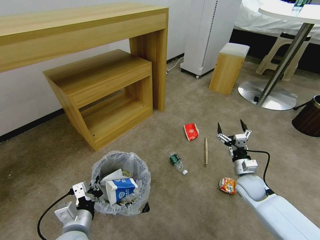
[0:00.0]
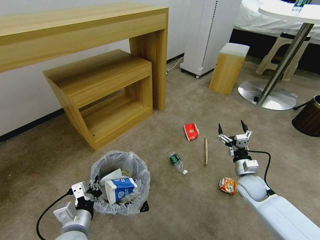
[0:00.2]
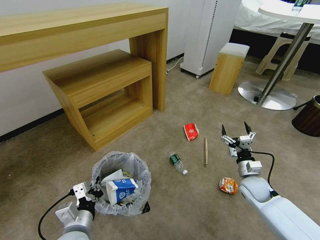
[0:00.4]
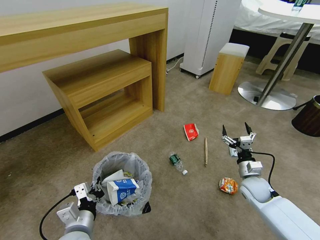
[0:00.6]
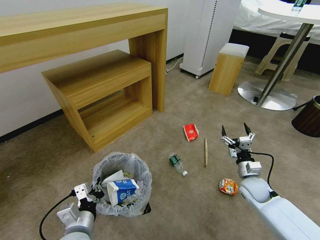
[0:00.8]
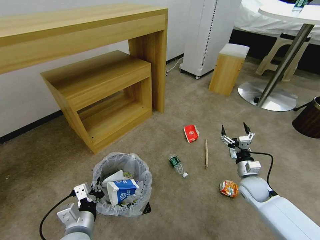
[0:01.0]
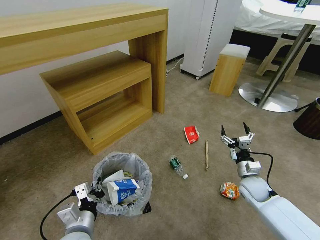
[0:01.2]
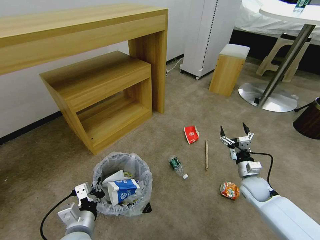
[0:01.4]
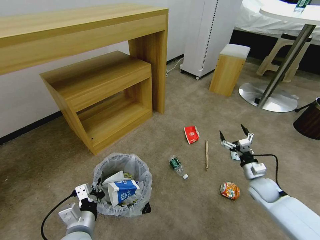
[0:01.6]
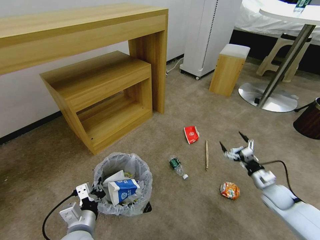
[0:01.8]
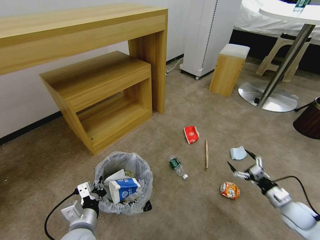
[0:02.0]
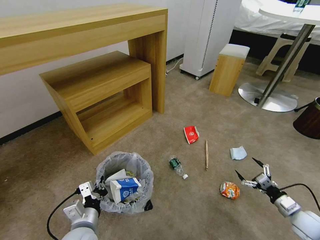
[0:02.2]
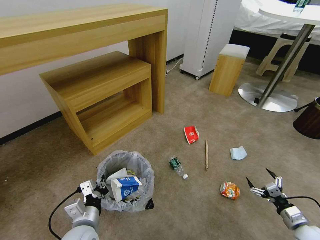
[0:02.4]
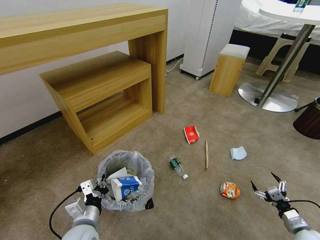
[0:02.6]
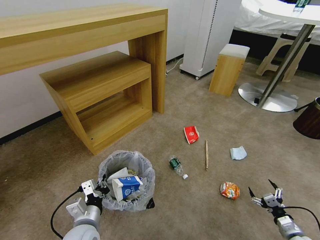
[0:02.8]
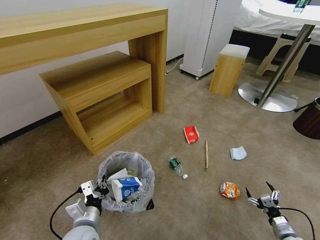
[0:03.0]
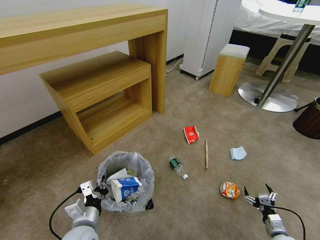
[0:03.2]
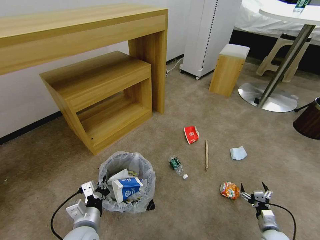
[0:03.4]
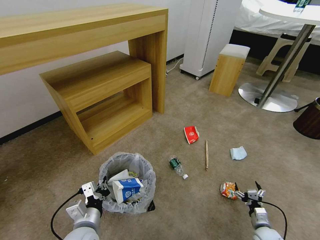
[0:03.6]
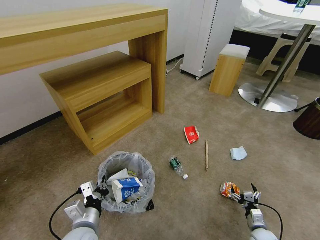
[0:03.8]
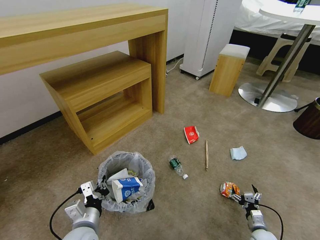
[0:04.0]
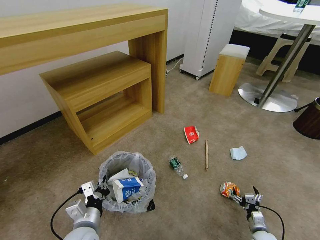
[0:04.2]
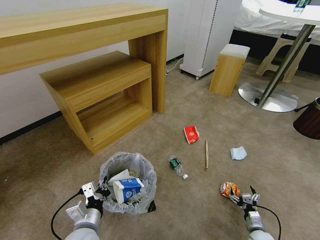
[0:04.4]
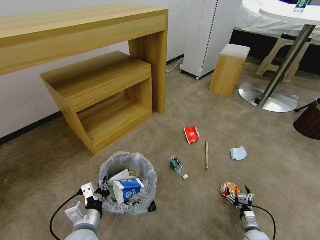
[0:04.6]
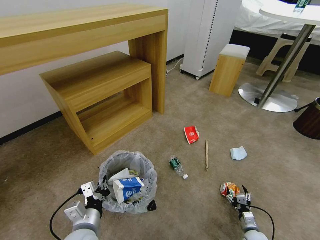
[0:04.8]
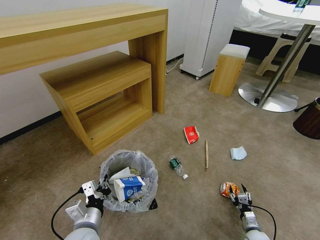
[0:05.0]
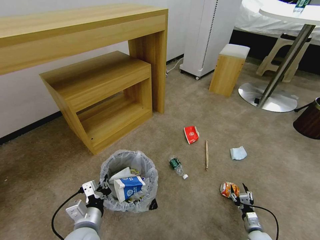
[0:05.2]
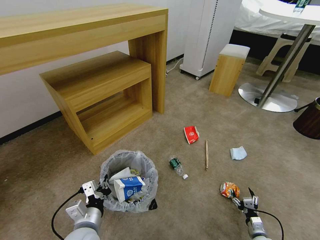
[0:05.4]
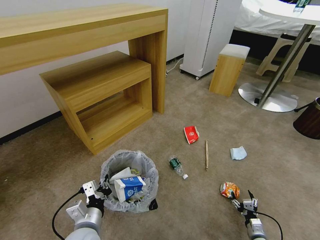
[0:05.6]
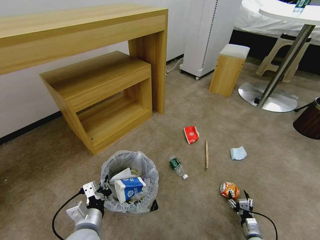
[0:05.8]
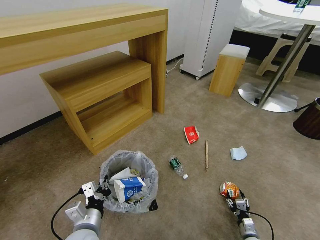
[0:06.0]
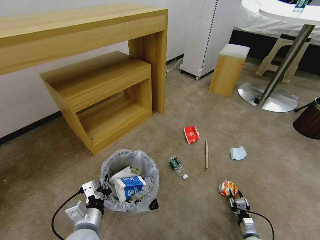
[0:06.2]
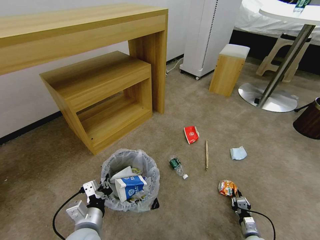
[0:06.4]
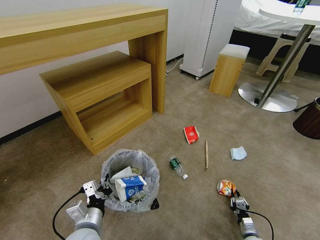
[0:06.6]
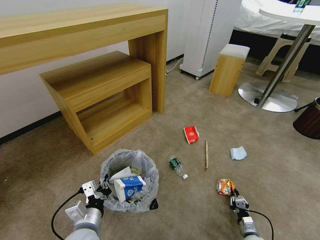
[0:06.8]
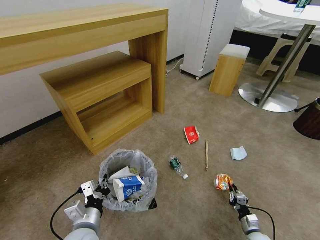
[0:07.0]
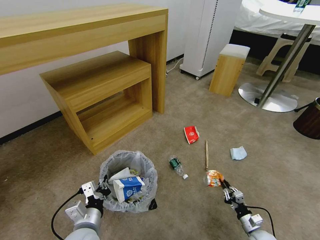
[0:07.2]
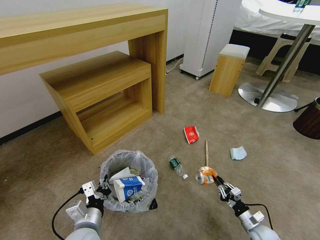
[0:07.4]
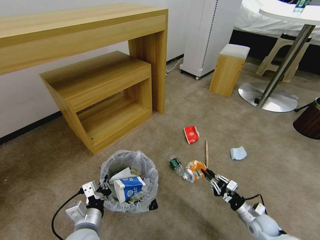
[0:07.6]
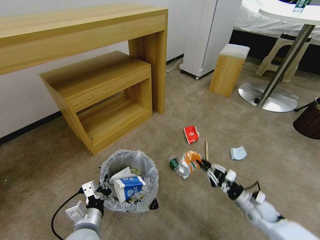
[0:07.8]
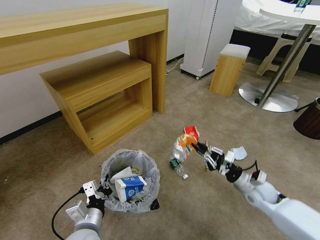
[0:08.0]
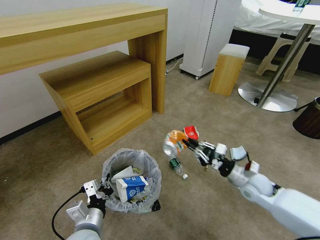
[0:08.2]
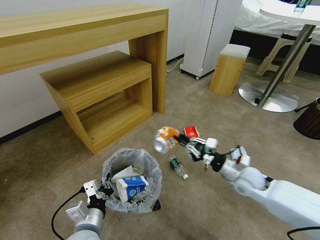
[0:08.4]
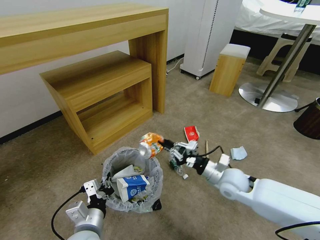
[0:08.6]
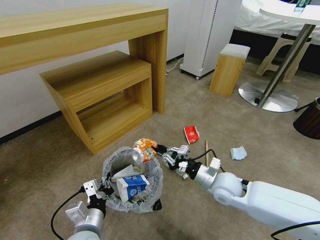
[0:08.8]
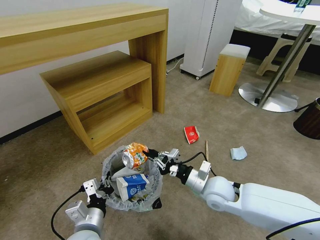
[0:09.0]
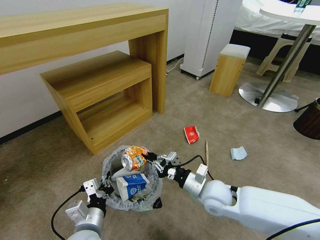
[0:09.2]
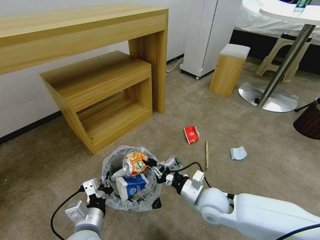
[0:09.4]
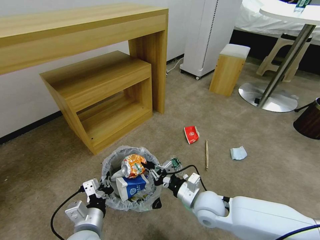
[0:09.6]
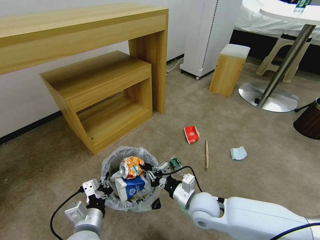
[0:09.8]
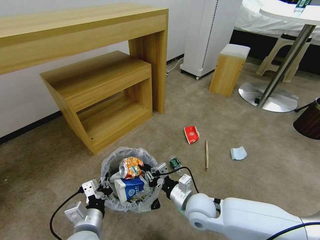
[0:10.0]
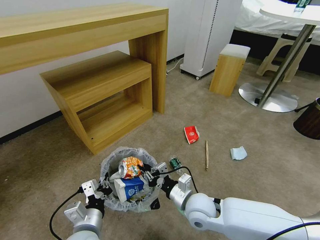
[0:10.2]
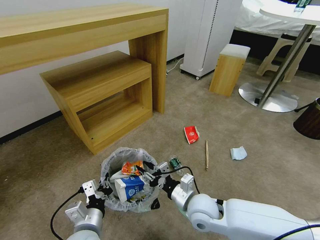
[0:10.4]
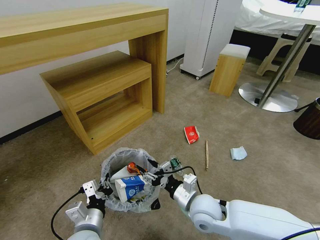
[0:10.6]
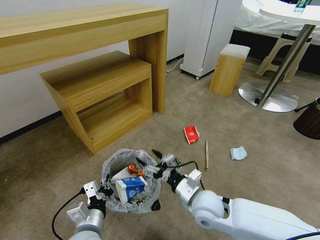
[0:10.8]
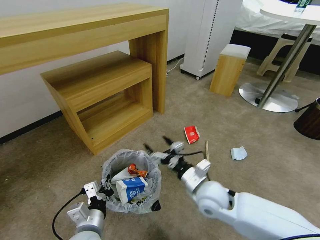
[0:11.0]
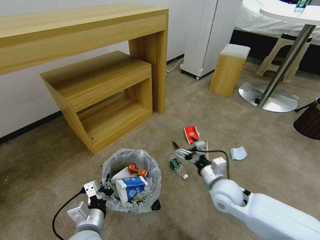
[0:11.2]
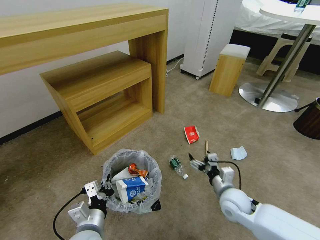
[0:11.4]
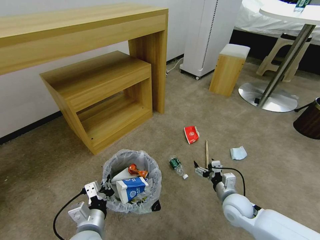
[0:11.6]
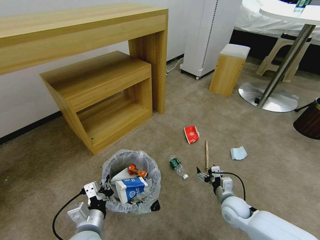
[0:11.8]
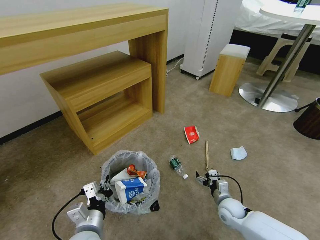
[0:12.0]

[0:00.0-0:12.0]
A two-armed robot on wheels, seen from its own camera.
Task of the whole recording: Pick up the trash bin and place the garbage on the floor into it.
0:00.0 to 0:01.6: The grippers stay close to where they were, moving slightly.
0:01.6 to 0:03.0: The right gripper travels to the right and backward by roughly 20 cm.
0:03.0 to 0:04.4: The right gripper shifts some 15 cm downward and to the left.
0:04.4 to 0:06.0: The right gripper closes up.
0:06.0 to 0:07.6: The right gripper closes.
0:07.6 to 0:09.0: The right gripper is displaced upward and forward by some 25 cm.
0:09.0 to 0:10.4: The right gripper travels to the left and upward by about 20 cm.
0:10.4 to 0:12.0: The right gripper is displaced to the left and backward by roughly 10 cm, and opens up.

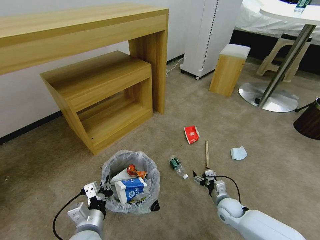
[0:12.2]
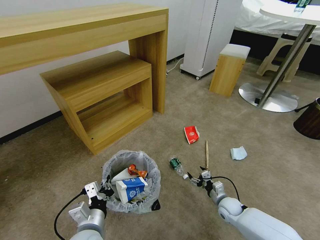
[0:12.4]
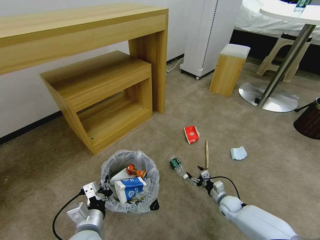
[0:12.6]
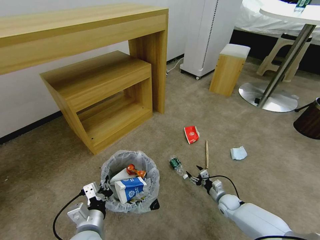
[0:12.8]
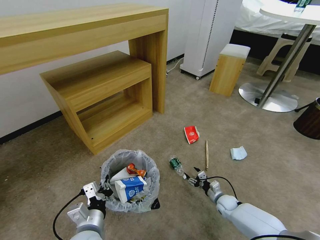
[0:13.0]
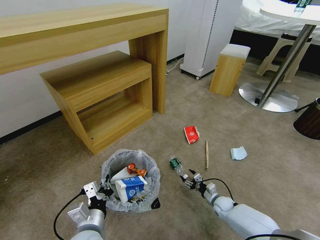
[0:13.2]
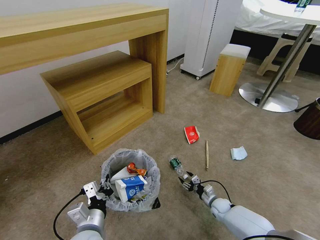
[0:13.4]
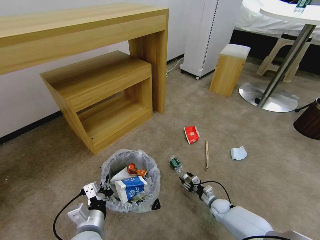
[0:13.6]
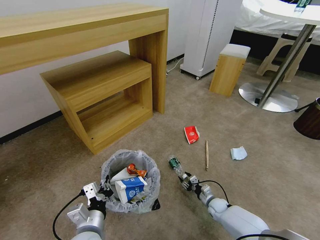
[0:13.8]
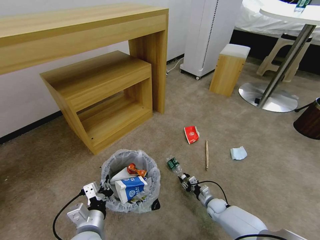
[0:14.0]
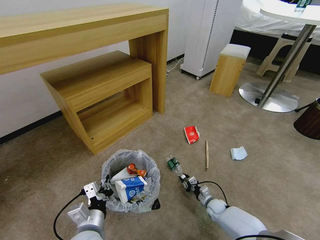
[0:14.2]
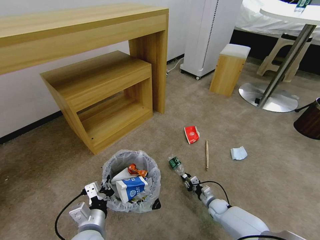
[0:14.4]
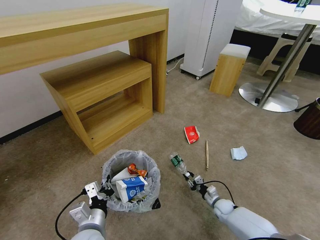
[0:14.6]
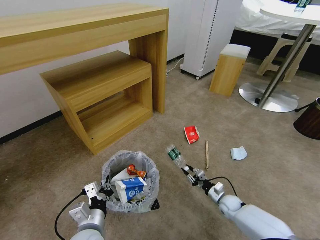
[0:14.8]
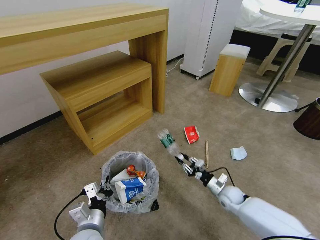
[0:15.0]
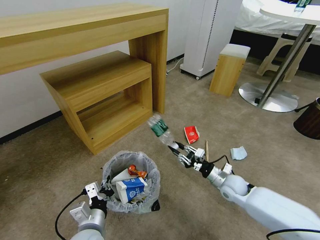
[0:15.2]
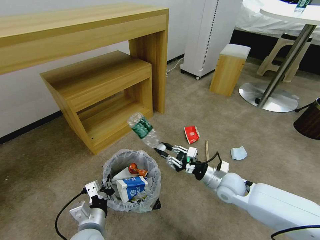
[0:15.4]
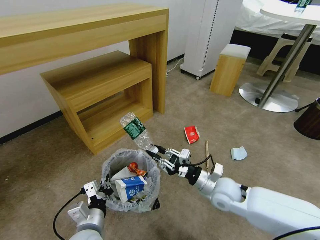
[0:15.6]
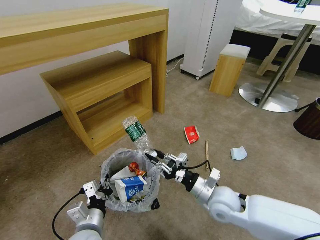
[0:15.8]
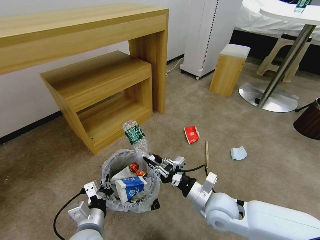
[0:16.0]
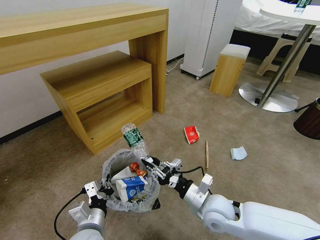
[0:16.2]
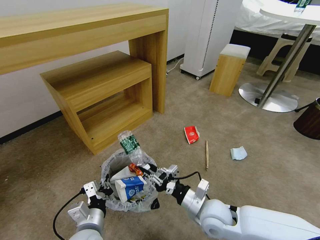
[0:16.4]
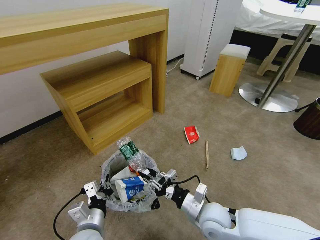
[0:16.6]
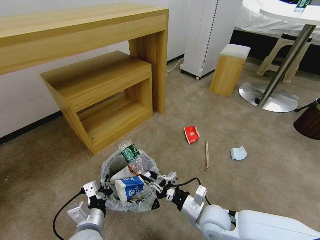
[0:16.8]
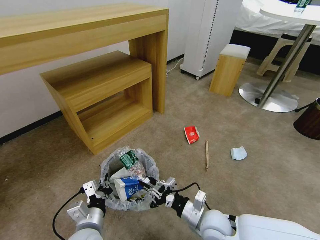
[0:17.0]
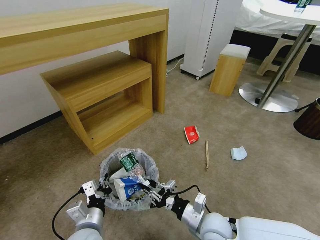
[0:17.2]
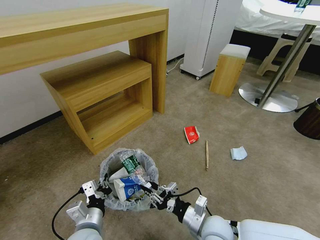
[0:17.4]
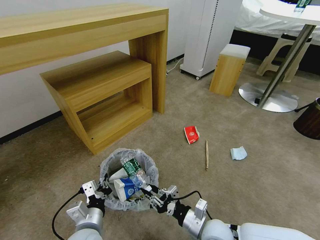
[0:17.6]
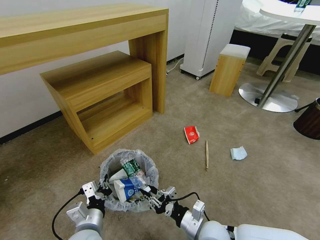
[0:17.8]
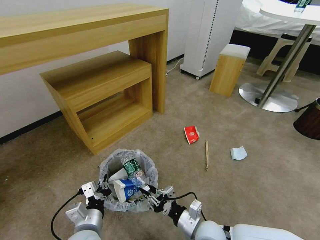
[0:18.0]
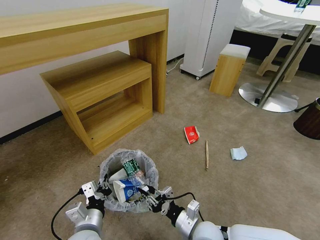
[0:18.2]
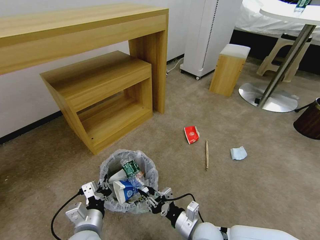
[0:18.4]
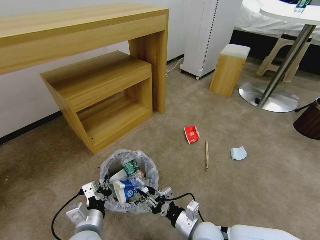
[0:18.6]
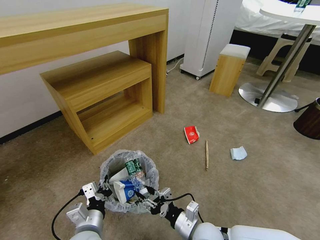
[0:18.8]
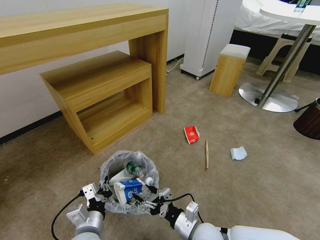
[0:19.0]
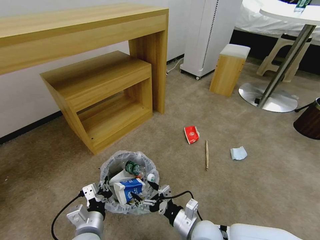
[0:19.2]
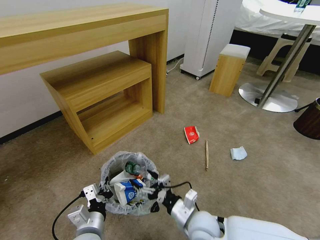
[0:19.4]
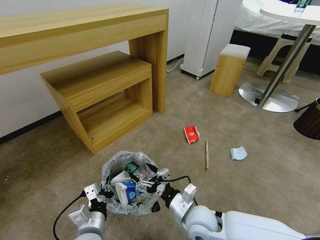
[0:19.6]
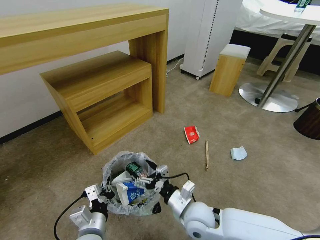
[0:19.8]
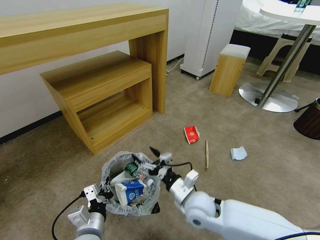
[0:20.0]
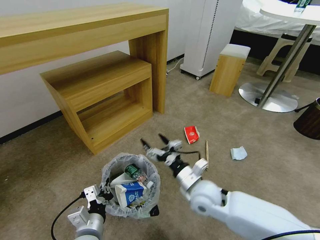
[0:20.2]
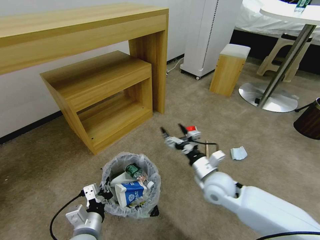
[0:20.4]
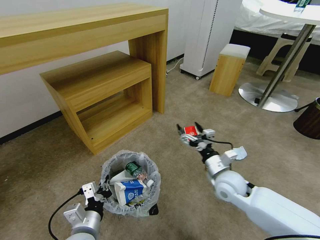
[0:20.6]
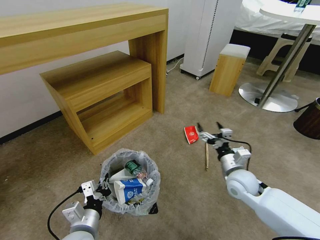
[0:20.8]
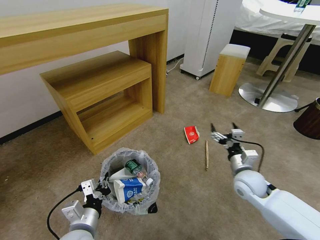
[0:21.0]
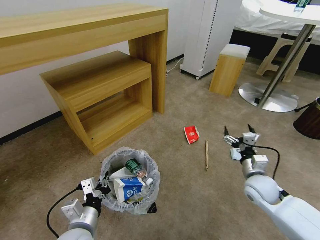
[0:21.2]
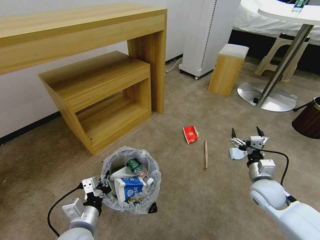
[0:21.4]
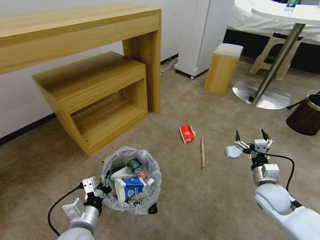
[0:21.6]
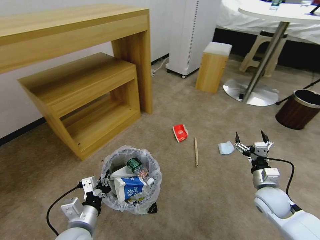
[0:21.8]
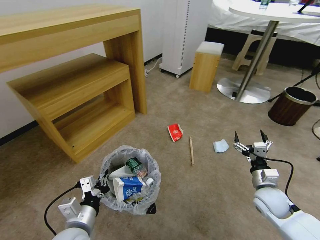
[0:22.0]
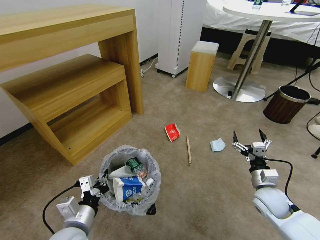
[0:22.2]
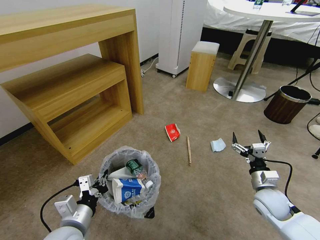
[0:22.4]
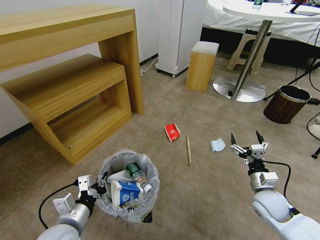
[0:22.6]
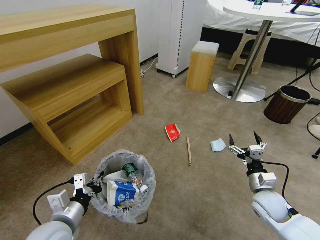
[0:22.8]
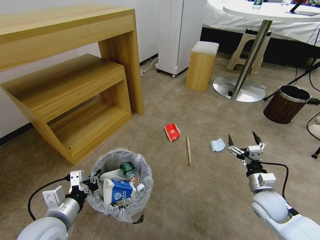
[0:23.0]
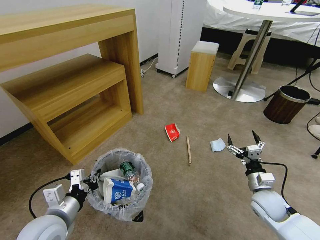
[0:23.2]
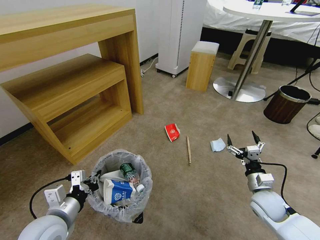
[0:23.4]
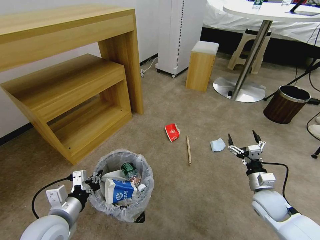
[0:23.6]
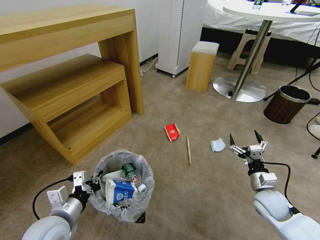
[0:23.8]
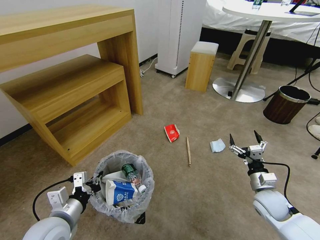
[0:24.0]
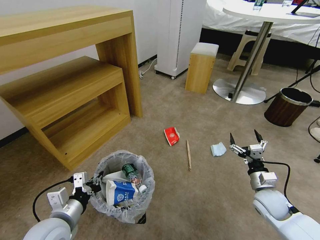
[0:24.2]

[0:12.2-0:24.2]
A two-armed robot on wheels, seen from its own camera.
Task of the whole recording: Pick up the trash bin and place the garbage on the floor into it.
0:12.2 to 0:13.8: The right gripper moves downward and to the right, about 25 cm.
0:13.8 to 0:15.2: The right gripper heads downward, covering roughly 10 cm.
0:15.2 to 0:16.6: The right gripper moves upward, some 30 cm.
0:16.6 to 0:18.2: The right gripper heads downward and backward, covering about 10 cm.
0:18.2 to 0:19.8: The right gripper ends up some 5 cm from where it was, and opens its fingers.
0:19.8 to 0:21.2: The right gripper shifts about 20 cm to the right.
0:21.2 to 0:22.6: The right gripper ends up roughly 5 cm from where it was.
0:22.6 to 0:24.2: The grippers make only small movements.
